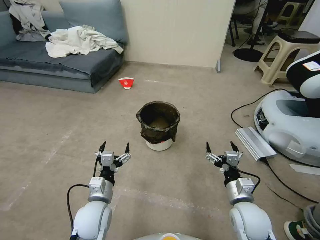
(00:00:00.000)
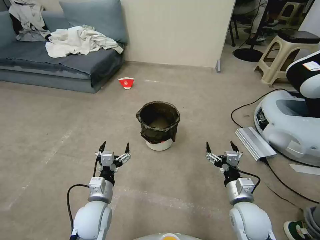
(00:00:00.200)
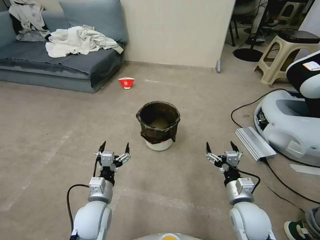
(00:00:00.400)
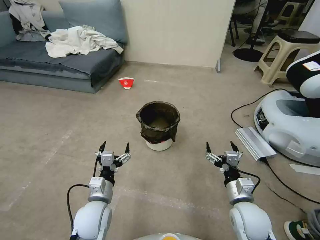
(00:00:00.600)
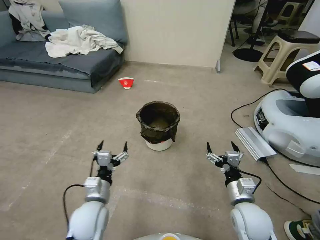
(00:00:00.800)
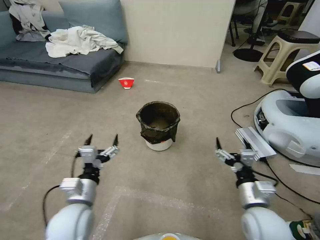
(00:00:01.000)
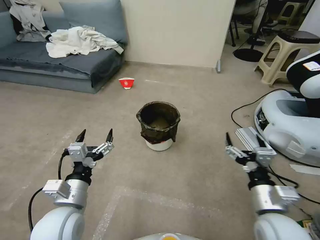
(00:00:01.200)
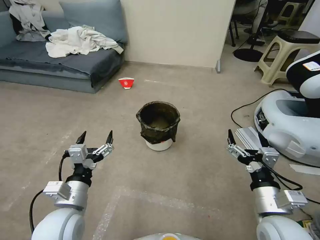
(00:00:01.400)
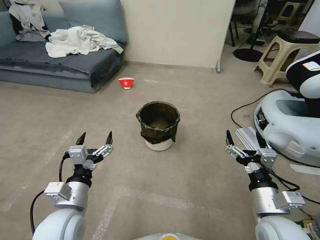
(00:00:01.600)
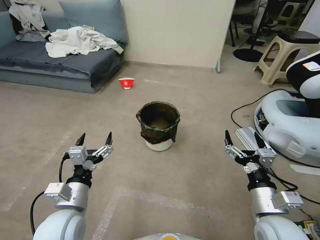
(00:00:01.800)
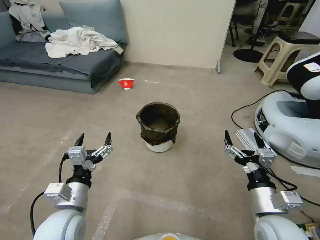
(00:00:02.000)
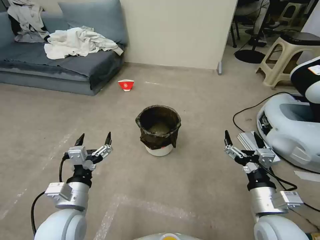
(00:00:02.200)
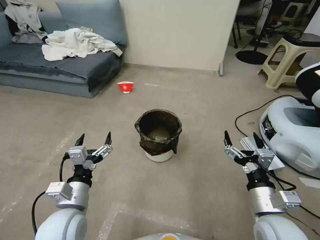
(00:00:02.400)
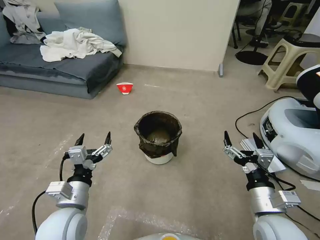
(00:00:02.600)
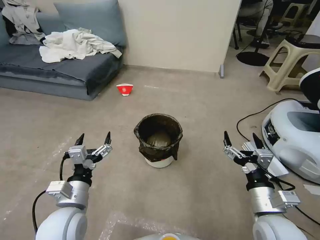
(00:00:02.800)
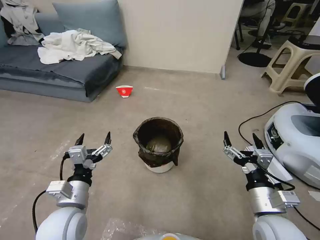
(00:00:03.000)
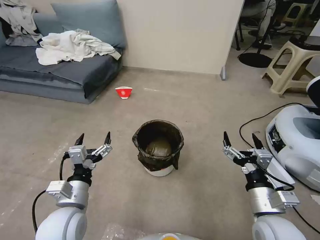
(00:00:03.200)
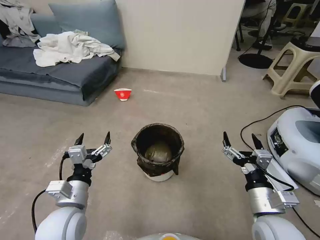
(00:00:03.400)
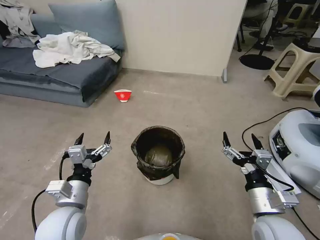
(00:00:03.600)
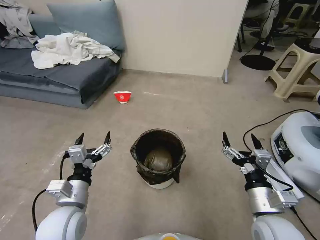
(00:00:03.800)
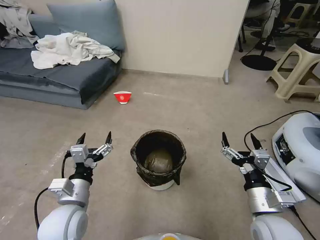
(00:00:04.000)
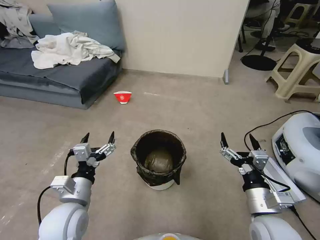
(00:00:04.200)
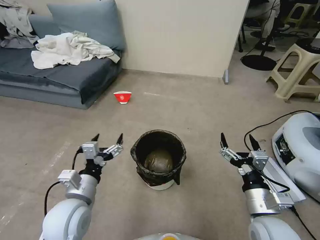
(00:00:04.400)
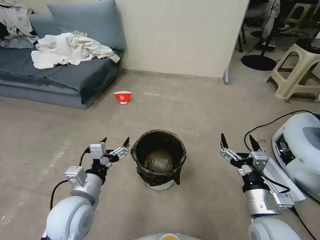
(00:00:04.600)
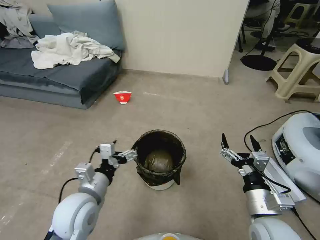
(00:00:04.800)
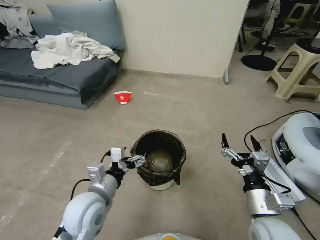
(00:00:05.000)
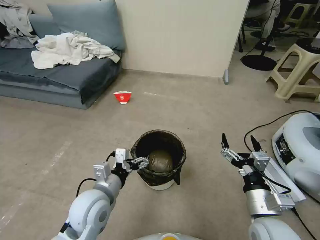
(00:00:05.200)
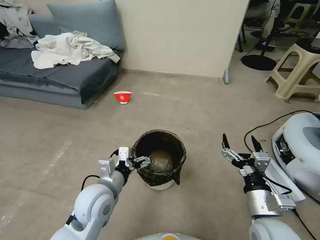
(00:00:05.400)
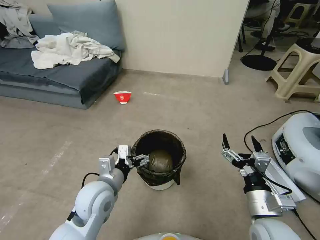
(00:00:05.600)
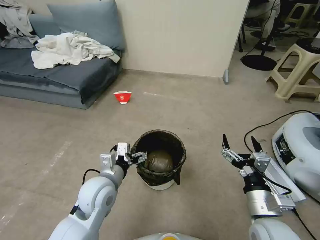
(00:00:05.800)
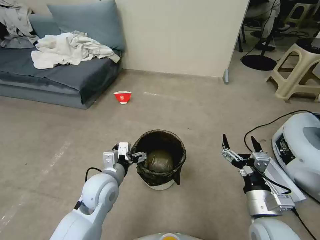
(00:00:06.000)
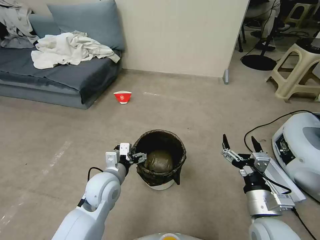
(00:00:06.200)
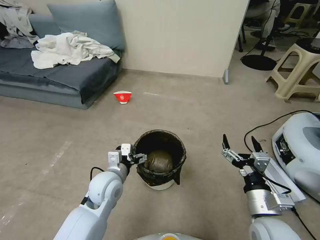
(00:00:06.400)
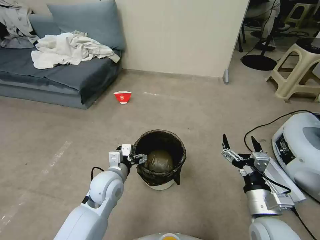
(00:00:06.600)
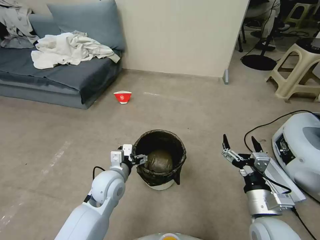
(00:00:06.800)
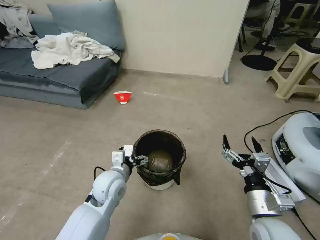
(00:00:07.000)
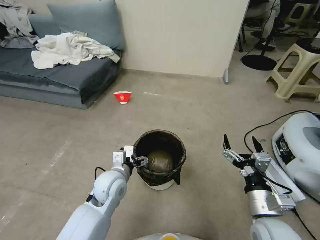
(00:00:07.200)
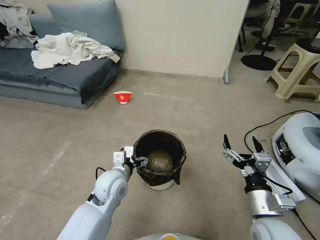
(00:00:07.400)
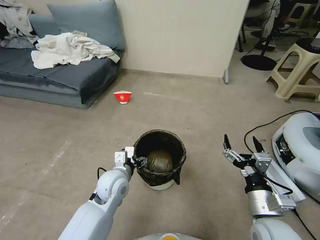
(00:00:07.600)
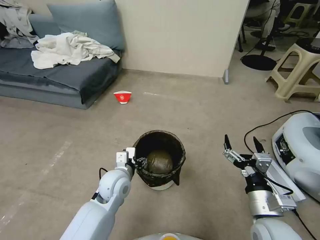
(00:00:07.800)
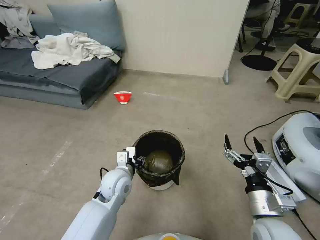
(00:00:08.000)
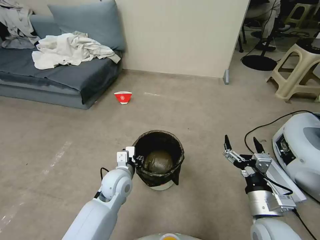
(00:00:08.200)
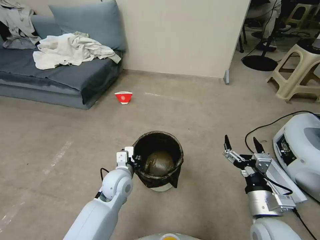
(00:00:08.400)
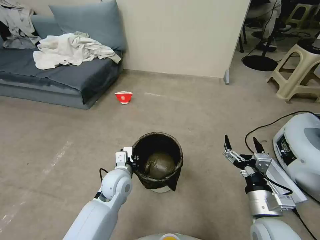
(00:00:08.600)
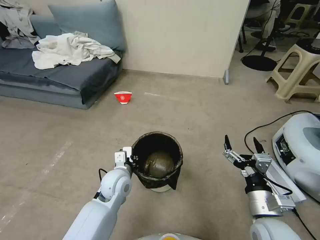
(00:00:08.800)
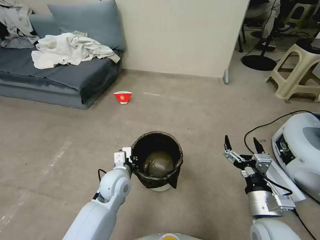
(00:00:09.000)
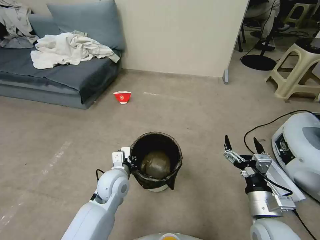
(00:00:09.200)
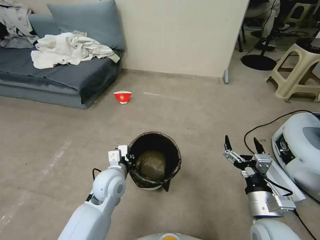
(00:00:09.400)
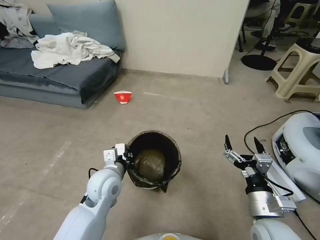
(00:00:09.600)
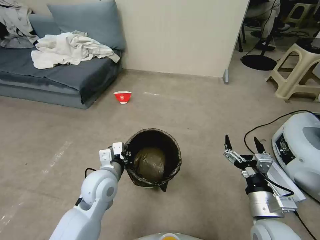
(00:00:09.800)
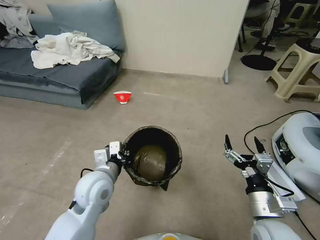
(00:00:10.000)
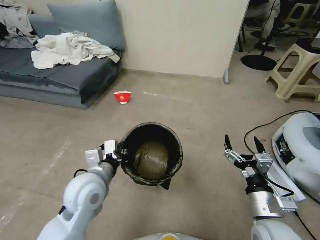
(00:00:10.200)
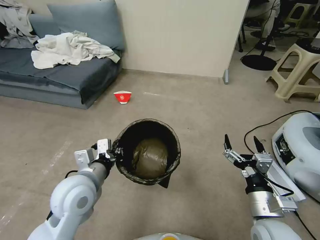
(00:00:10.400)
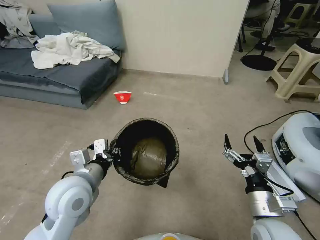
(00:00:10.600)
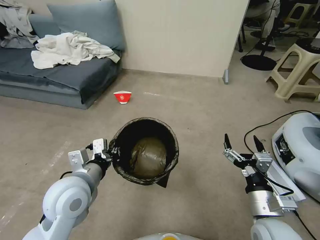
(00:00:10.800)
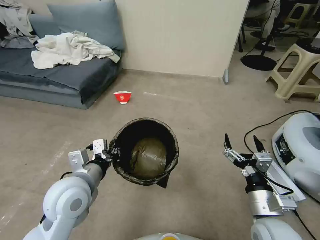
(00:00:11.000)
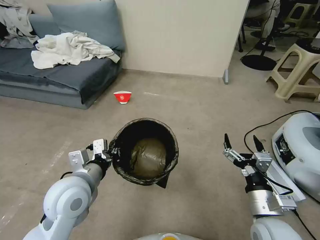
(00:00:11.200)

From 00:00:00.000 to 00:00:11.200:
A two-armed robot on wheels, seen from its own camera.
Task of the whole recording: Pick up the trash can from the floor.
From 00:00:04.800 to 00:00:06.400: The left gripper goes some 10 cm forward.
From 00:00:06.400 to 00:00:08.000: The left gripper closes up.
From 00:00:08.000 to 00:00:09.600: The left gripper closes up.
From 00:00:09.600 to 00:00:11.200: The left gripper heads upward, backward and to the left, covering approximately 10 cm.

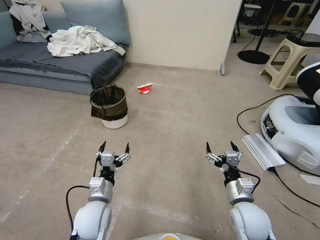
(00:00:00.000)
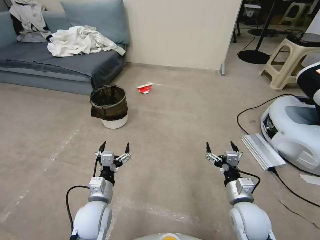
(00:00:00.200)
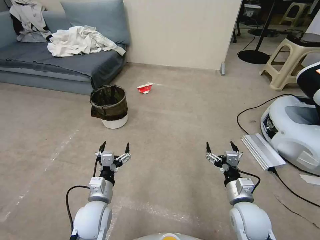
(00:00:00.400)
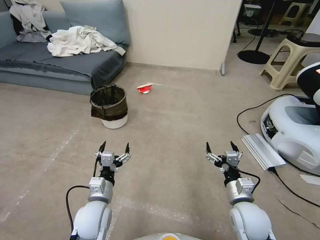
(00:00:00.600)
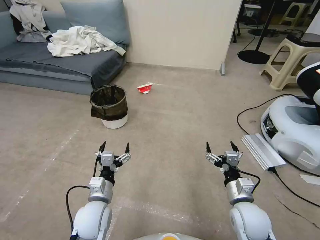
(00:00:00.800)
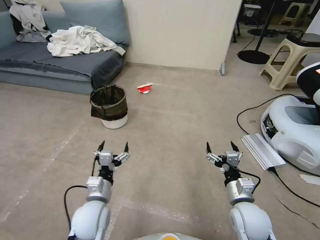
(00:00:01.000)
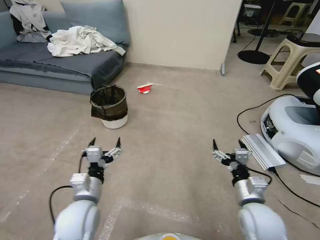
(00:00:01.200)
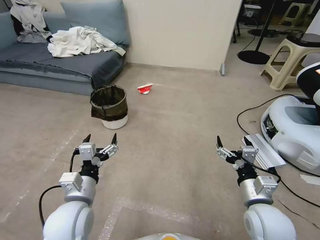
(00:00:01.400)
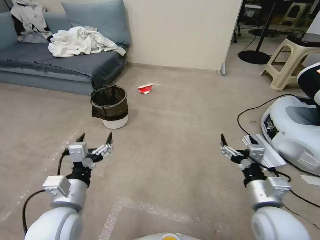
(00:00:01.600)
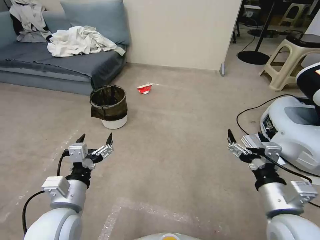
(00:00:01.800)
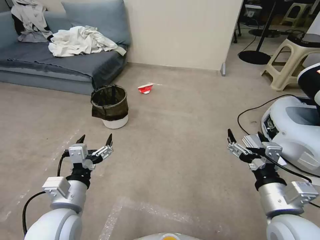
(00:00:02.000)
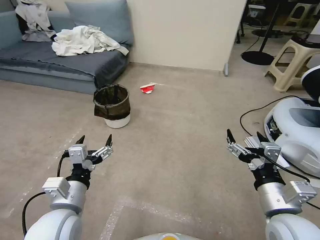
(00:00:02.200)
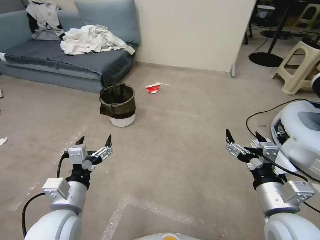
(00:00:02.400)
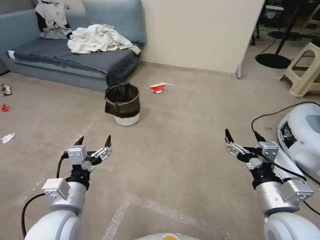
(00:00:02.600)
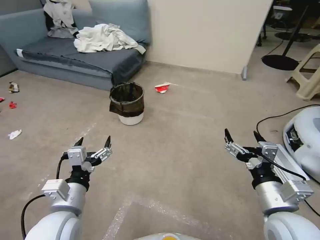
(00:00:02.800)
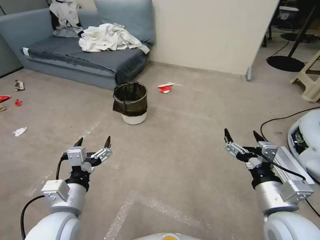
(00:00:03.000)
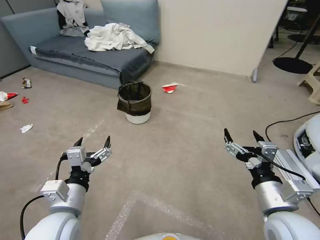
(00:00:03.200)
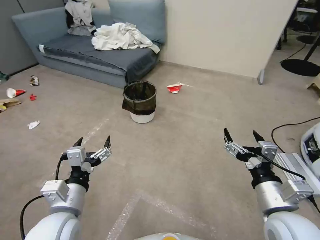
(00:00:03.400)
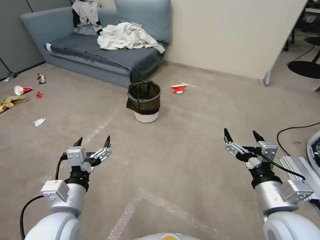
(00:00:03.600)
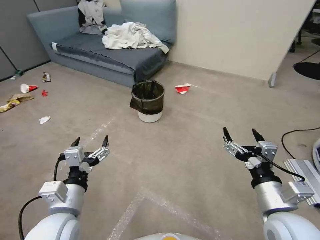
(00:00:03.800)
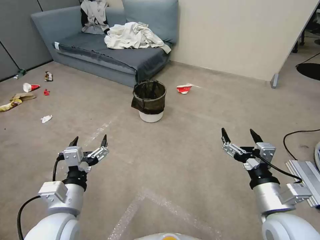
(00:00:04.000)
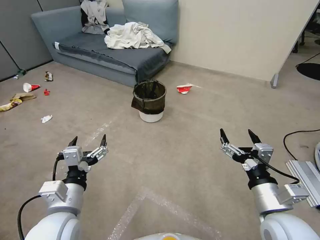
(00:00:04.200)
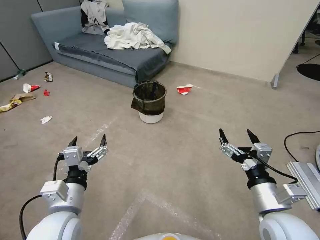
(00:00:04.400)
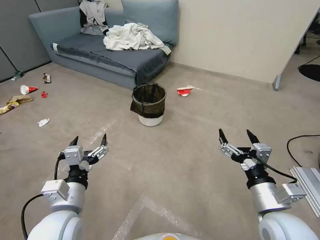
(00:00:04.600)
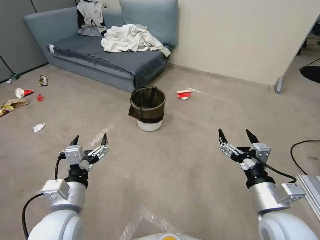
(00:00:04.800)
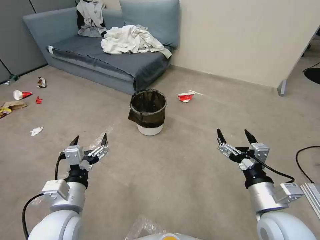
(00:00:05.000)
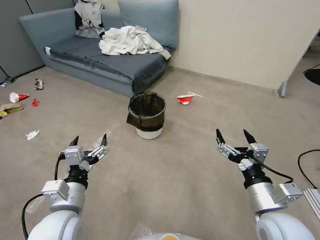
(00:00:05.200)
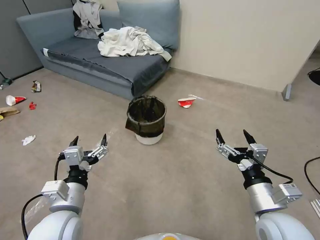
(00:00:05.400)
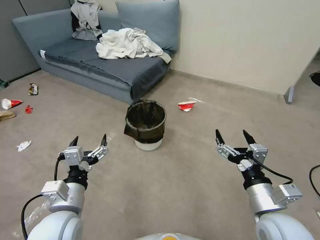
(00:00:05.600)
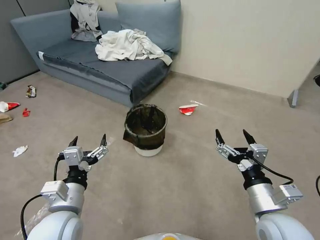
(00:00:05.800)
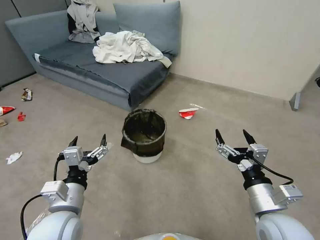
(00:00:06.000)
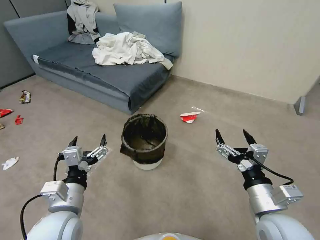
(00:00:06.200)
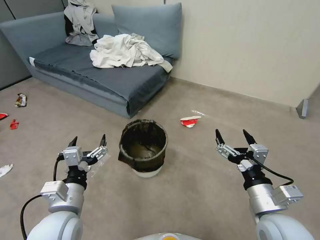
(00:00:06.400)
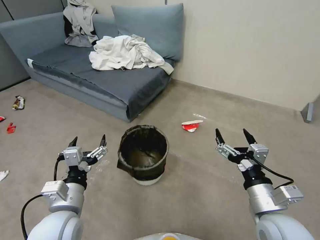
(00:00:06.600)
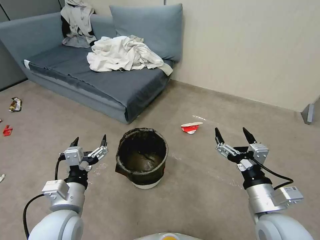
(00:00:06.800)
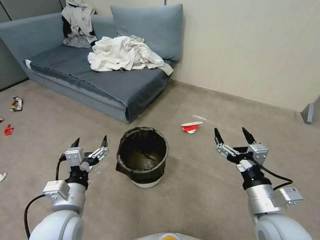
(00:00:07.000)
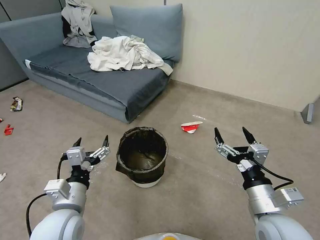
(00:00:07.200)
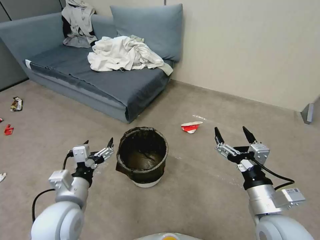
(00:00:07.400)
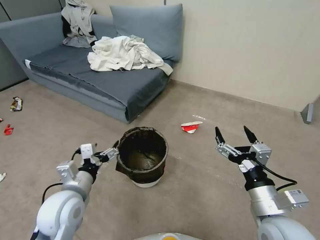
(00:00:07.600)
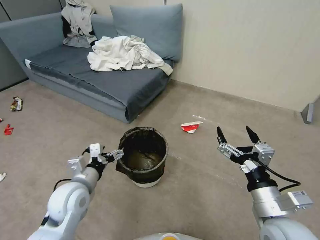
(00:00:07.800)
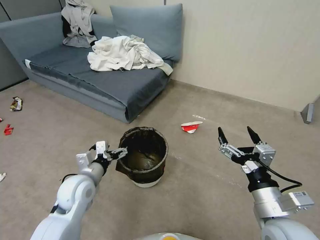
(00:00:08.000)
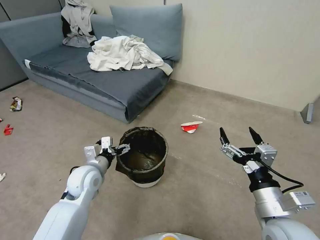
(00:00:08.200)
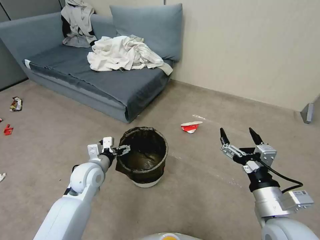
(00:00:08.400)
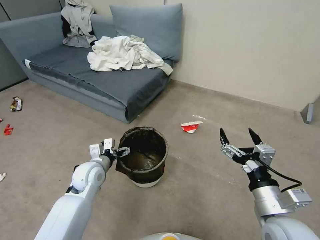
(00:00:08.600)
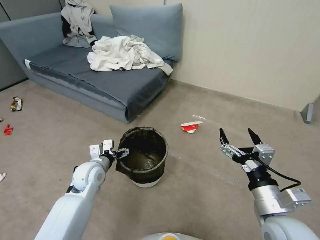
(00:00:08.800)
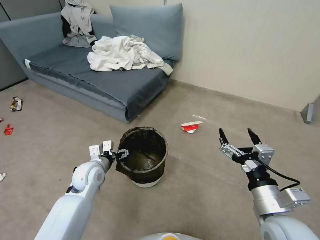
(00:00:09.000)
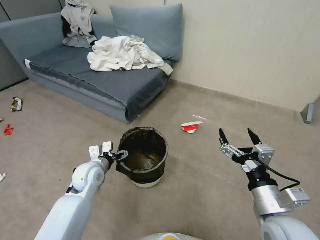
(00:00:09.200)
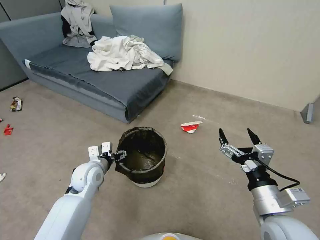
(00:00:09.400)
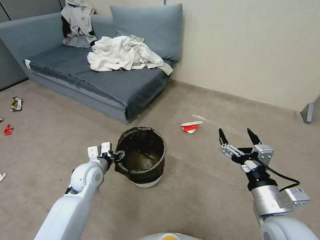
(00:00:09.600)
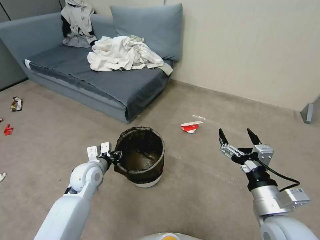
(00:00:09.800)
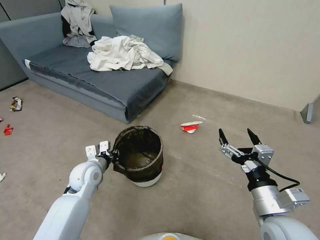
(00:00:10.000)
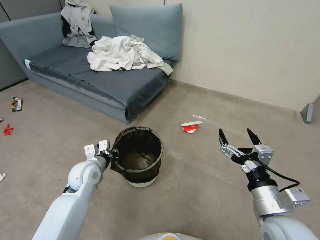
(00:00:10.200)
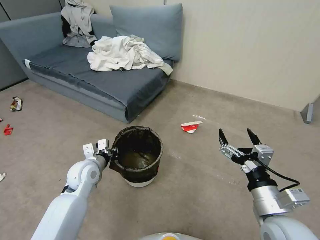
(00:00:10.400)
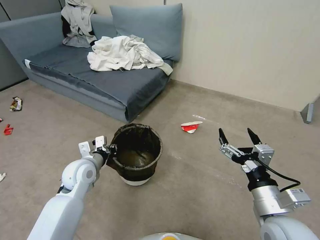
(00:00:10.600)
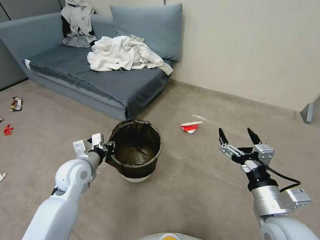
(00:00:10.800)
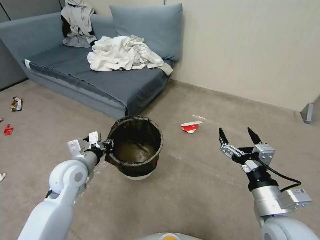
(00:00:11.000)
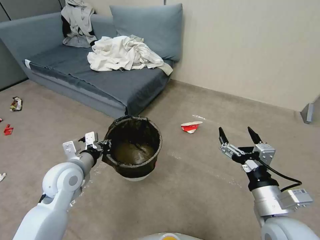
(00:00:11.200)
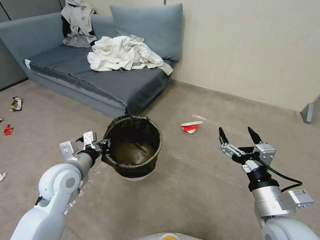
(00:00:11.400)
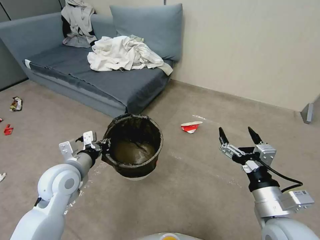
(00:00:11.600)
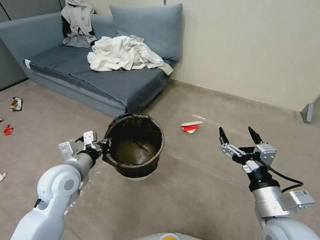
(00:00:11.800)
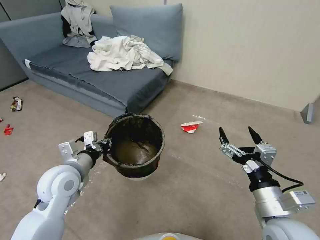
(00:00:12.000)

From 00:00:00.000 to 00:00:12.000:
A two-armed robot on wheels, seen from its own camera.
Task of the whole recording: Pick up the trash can from the floor.
From 00:00:06.000 to 00:00:07.600: The left gripper moves approximately 5 cm.
From 00:00:07.600 to 00:00:09.000: The left gripper goes roughly 15 cm forward and downward.
From 00:00:09.000 to 00:00:10.400: The left gripper closes its fingers.
From 00:00:10.400 to 00:00:12.000: The left gripper moves upward and backward, about 10 cm.
